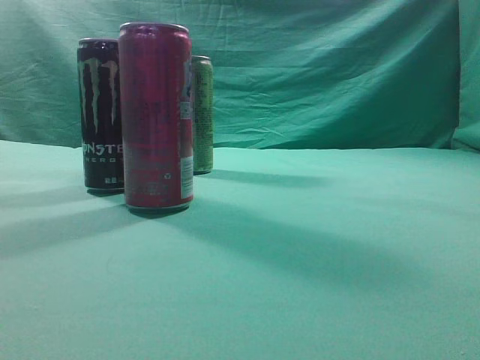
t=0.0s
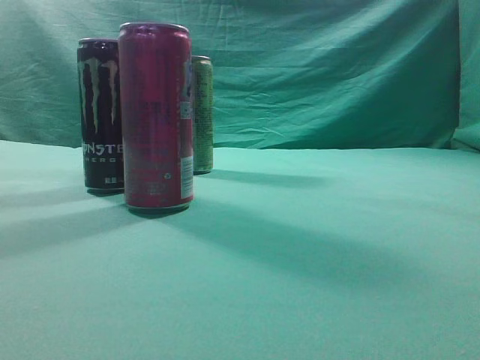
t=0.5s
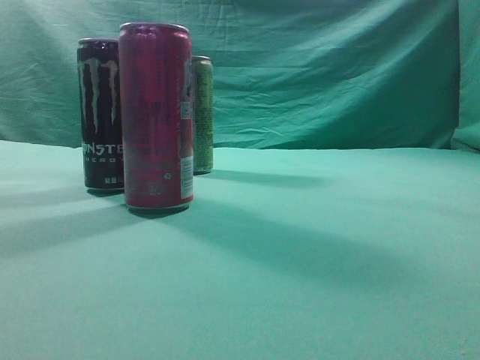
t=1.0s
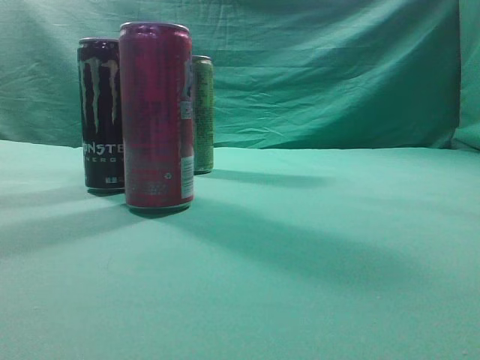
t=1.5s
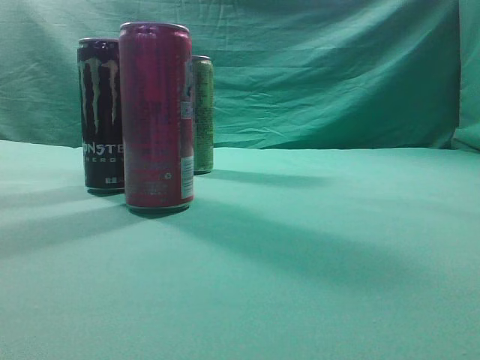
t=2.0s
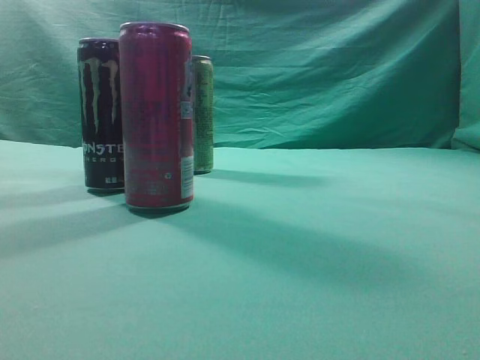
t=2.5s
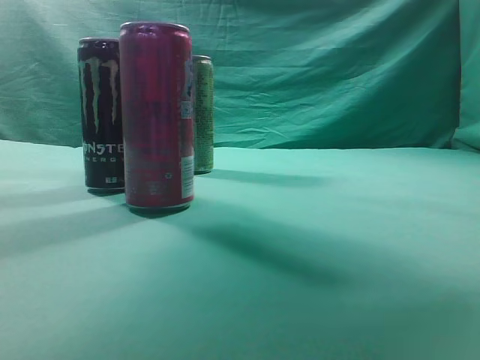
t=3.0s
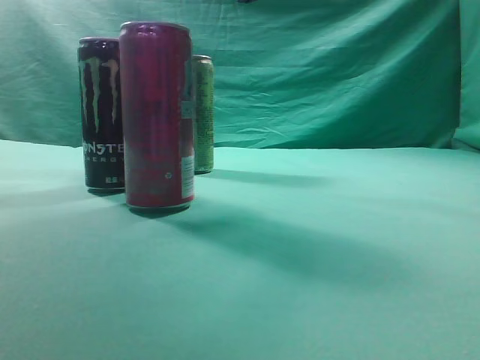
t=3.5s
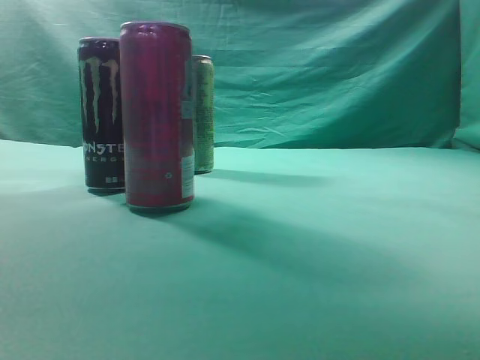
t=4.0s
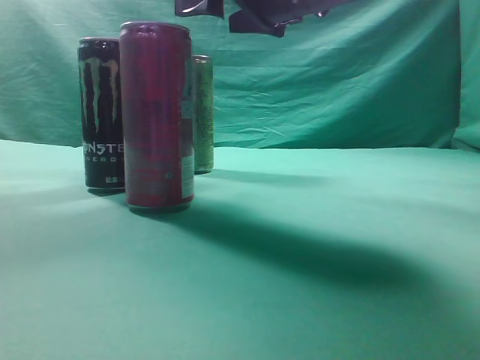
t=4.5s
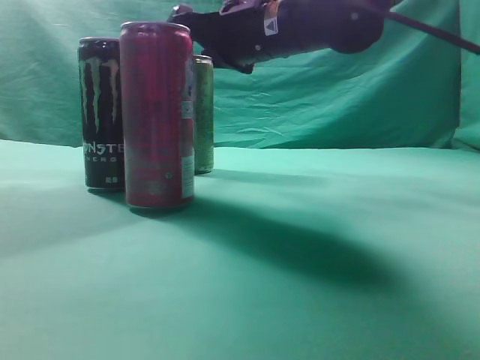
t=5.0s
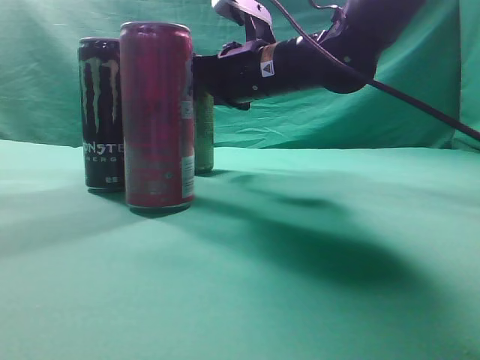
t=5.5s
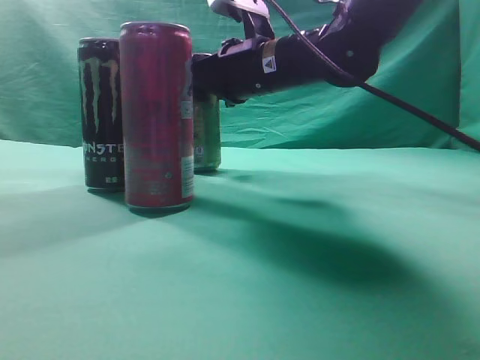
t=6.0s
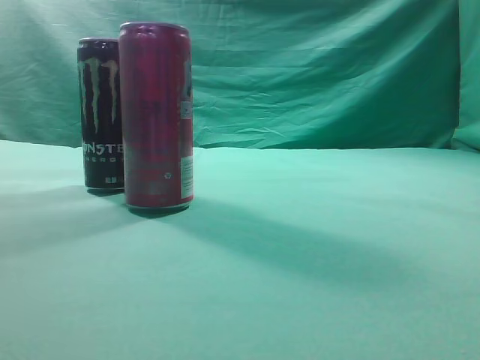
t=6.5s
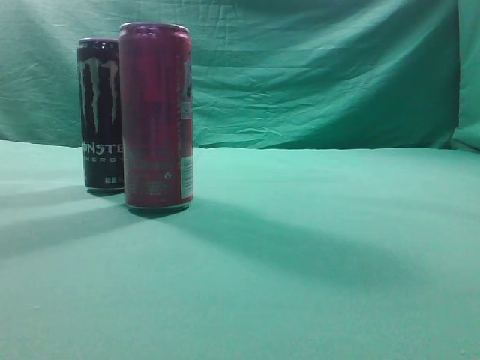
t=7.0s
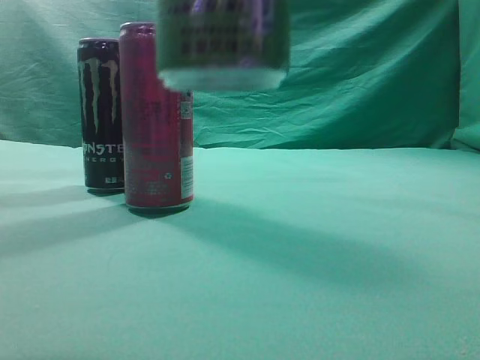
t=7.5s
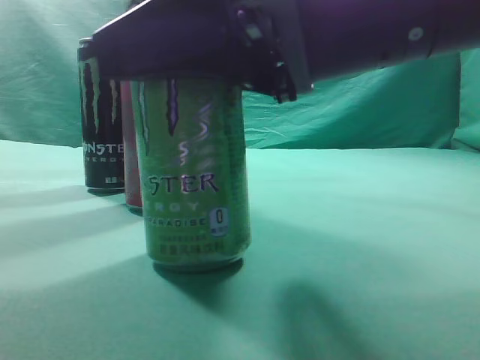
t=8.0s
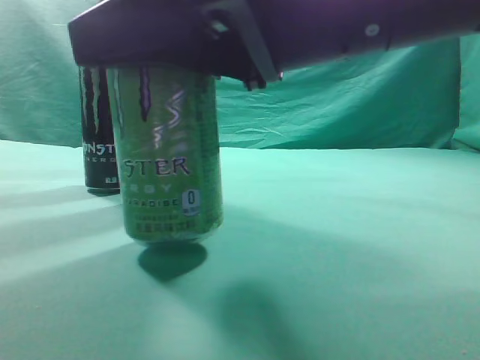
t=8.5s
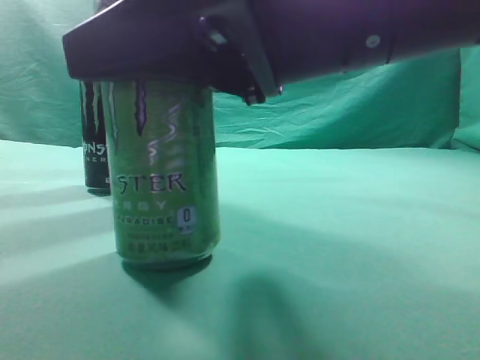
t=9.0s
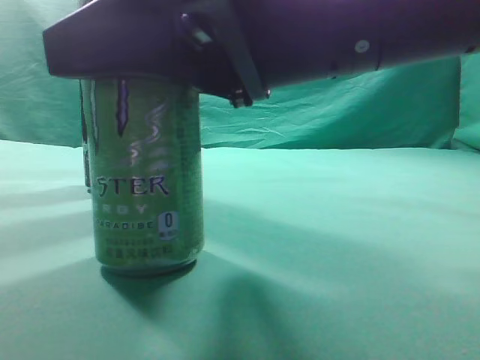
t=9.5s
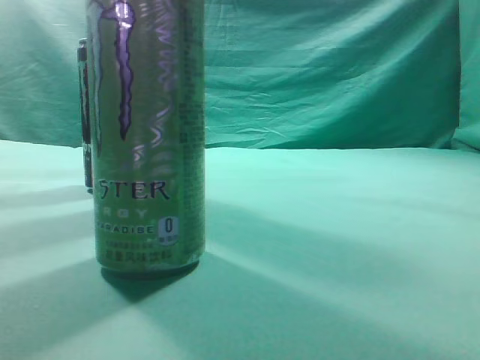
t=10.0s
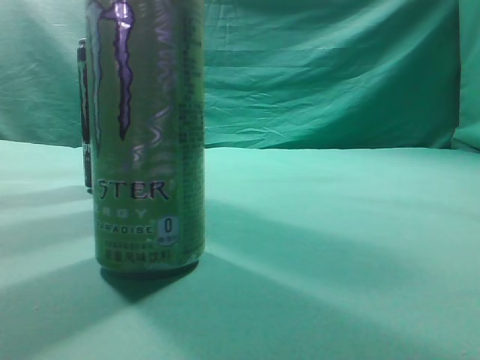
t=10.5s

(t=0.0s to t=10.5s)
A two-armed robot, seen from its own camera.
Task of the whole recording: move one drink among three beverages.
Step, t=0.0s - t=6.0s: Grasp the beverage bottle placed at the back of the desk.
Step, t=6.5s - t=10.0s: Place the beverage bottle to the front of the table.
t=2.0s - t=4.0s: The right gripper goes approximately 35 cm forward and to the left, and opens its fingers.
t=4.0s - t=6.5s: The right gripper is displaced upward by some 10 cm.
t=6.5s - t=8.5s: The right gripper is displaced downward and backward by about 25 cm.
t=8.5s - t=10.5s: The right gripper goes approximately 15 cm upward and to the right, and closes.
